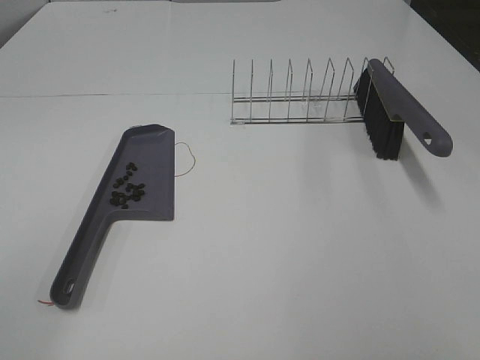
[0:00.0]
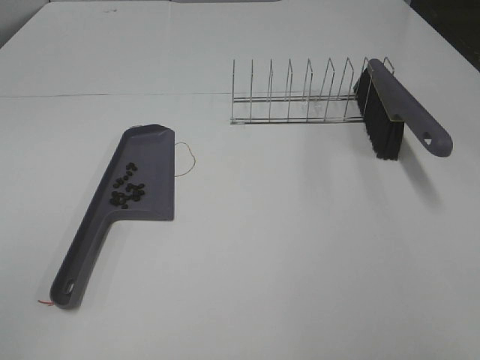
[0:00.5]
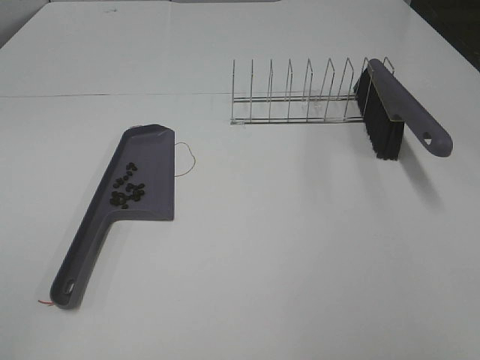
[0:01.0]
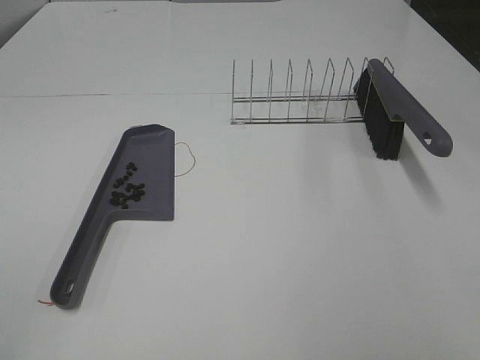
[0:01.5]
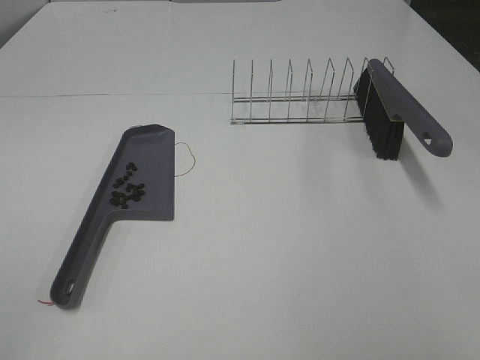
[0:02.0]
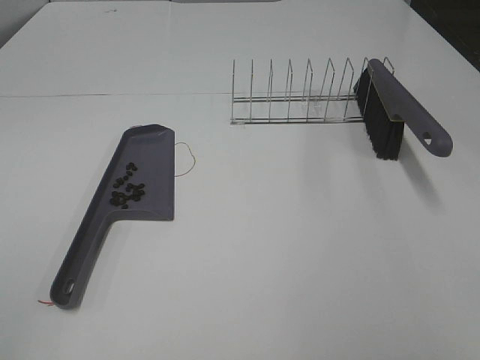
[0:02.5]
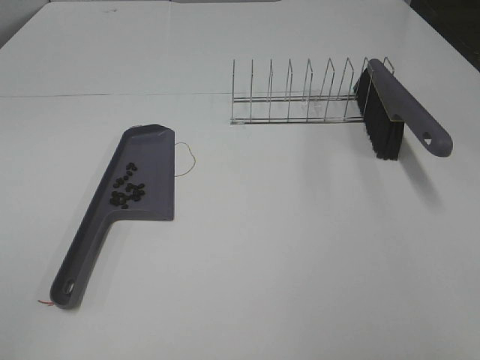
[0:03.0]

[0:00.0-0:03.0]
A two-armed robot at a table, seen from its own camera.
Task of the whole recording: Sweep Coffee Bean.
0:01.5 to 0:03.0: Both grippers stay about where they are.

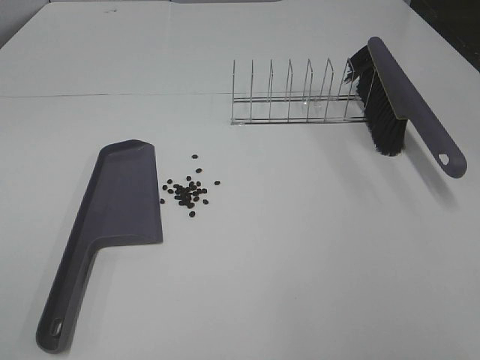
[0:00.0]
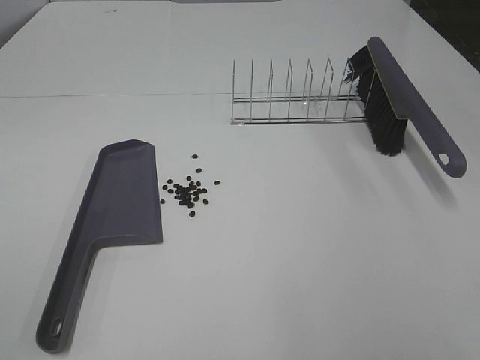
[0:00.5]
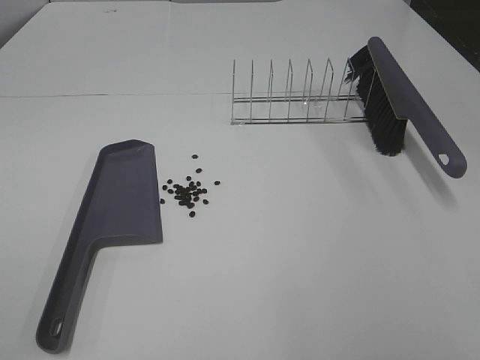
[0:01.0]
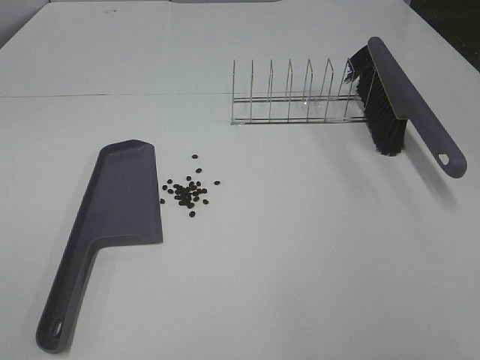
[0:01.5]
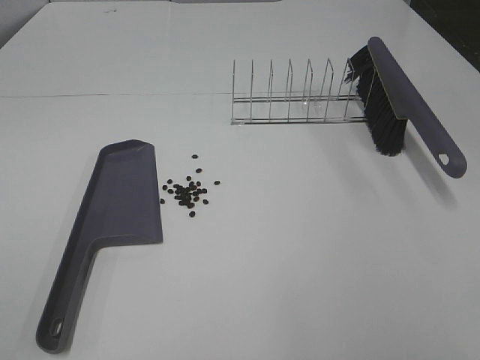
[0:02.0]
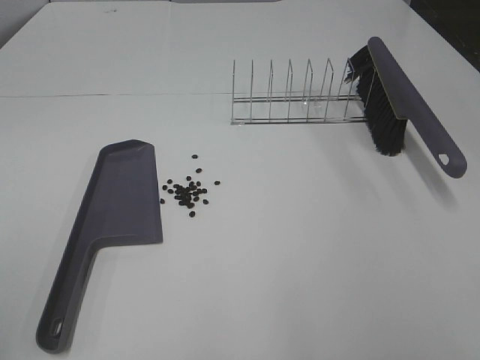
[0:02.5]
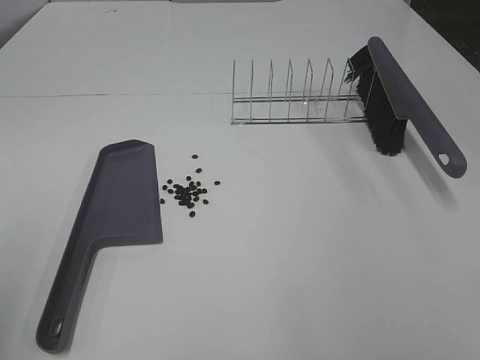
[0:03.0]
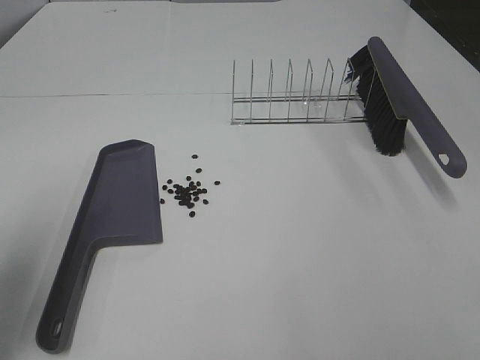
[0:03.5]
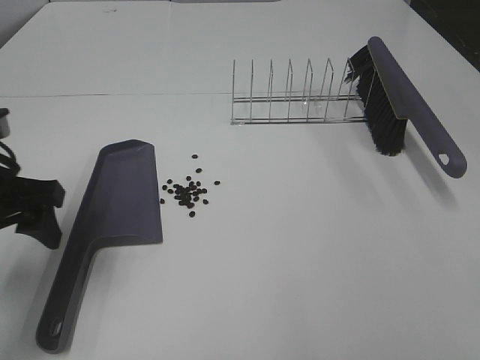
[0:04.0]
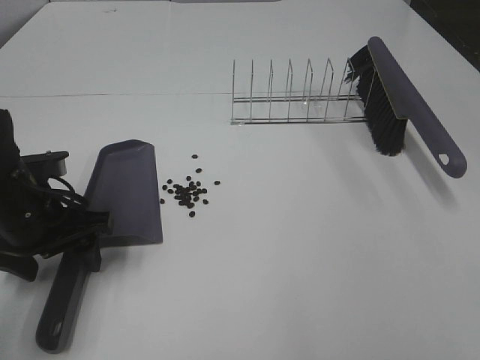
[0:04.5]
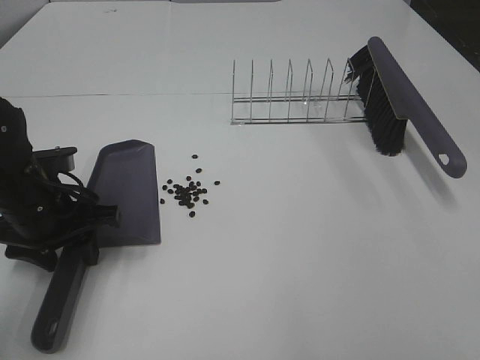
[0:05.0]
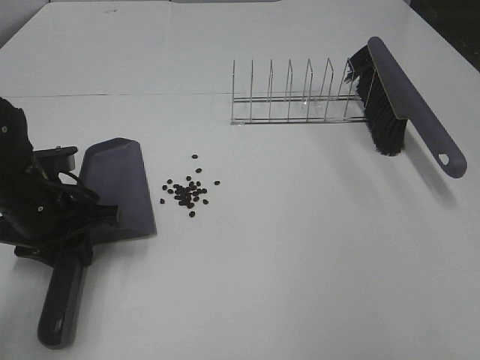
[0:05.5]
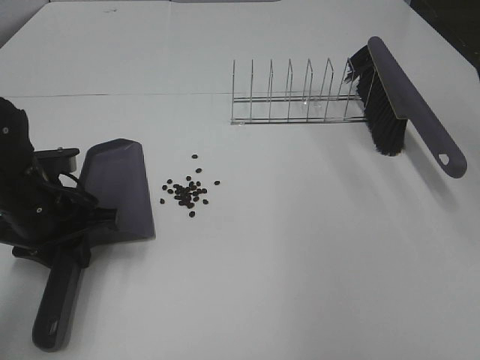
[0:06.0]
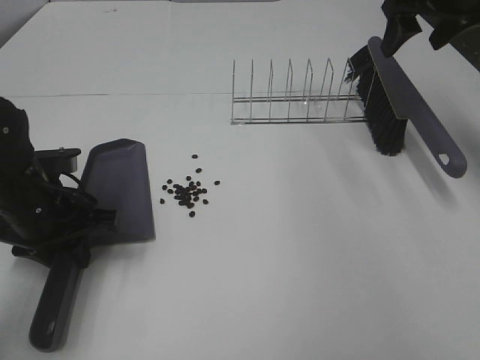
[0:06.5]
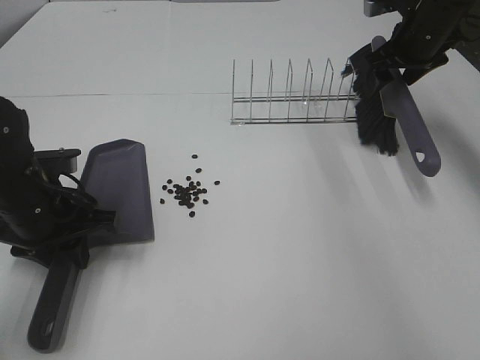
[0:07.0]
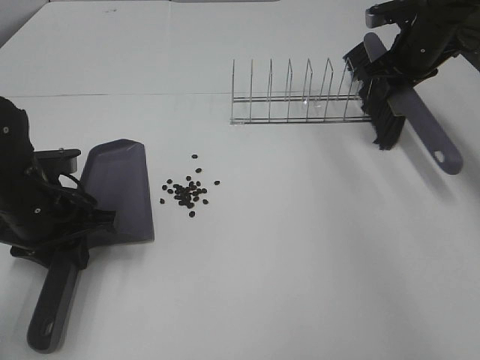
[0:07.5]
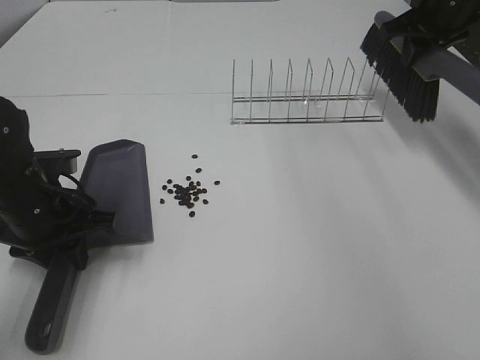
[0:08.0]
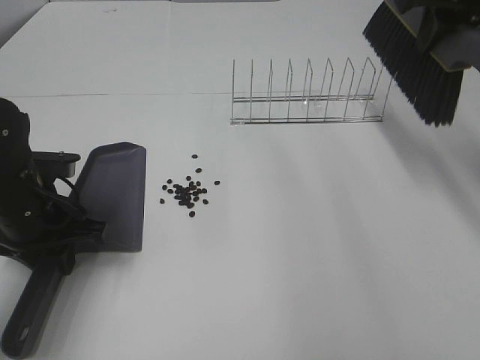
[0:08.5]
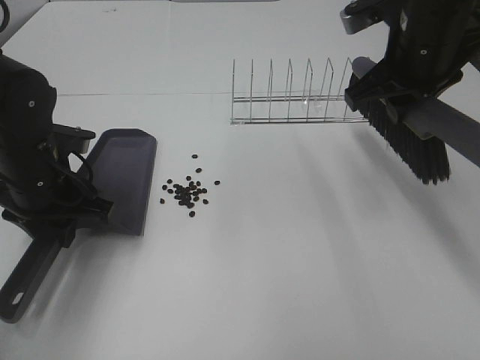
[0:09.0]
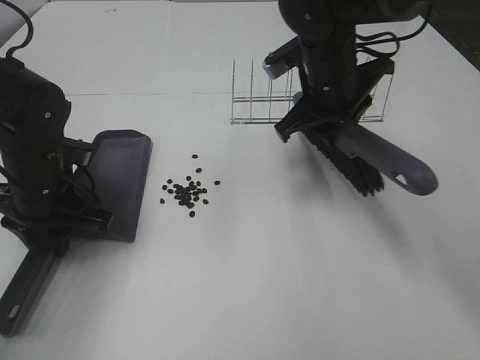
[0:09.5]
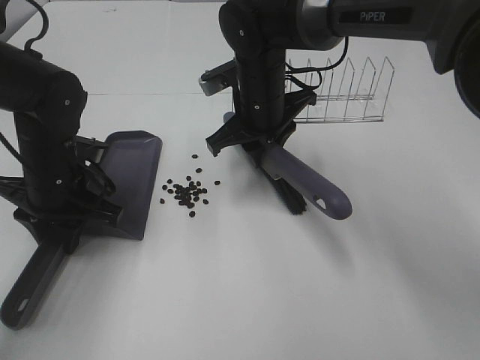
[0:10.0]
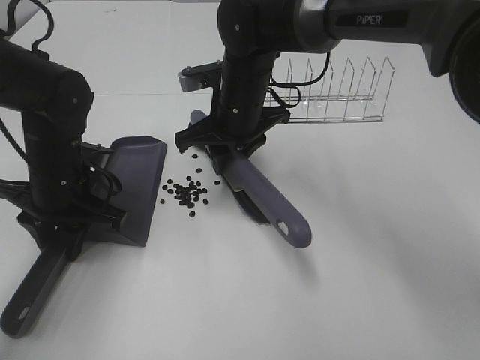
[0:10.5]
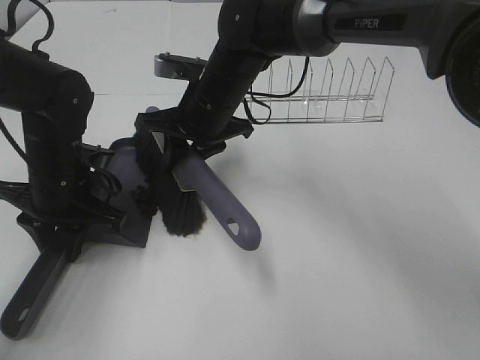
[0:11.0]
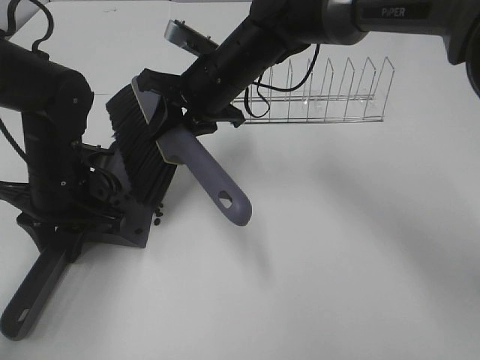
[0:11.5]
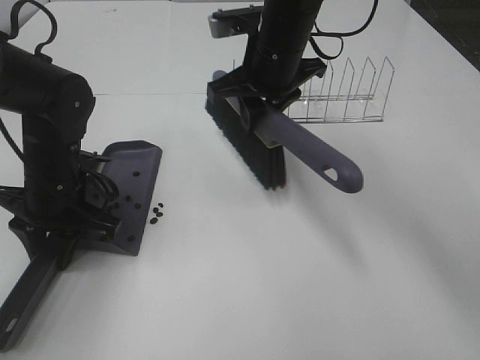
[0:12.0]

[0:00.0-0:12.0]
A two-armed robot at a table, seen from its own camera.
Task of the whole recording: Sweep Coffee Bean.
Step, 0:00.0 to 0:05.0: Left hand: grab the dustpan.
Step, 0:05.5 to 0:07.5: Right hand:grab the broom.
0:00.0 to 0:02.0: Both grippers stay about where they are.
0:02.0 to 0:04.0: The left gripper shifts some 30 cm forward and downward.
0:04.0 to 0:06.0: The left gripper travels downward by some 10 cm, and closes.
0:06.0 to 0:08.0: The right gripper heads forward and downward, covering roughly 20 cm, and closes.
0:08.0 to 0:10.0: The right gripper is displaced to the left and downward by about 25 cm.
0:10.0 to 0:12.0: The right gripper is displaced upward by roughly 5 cm.

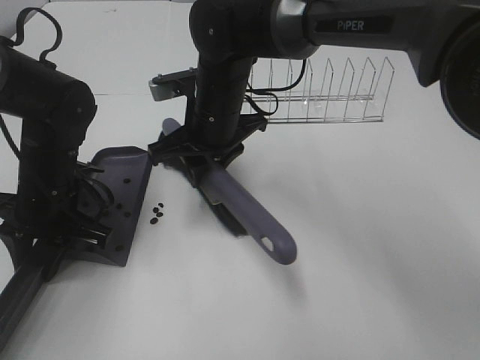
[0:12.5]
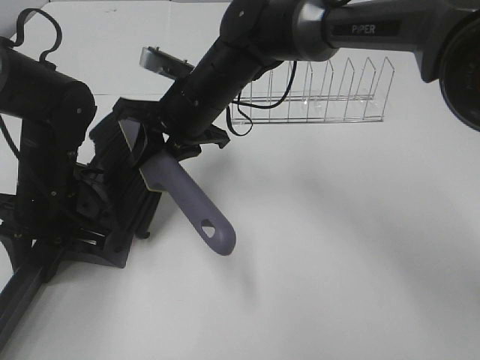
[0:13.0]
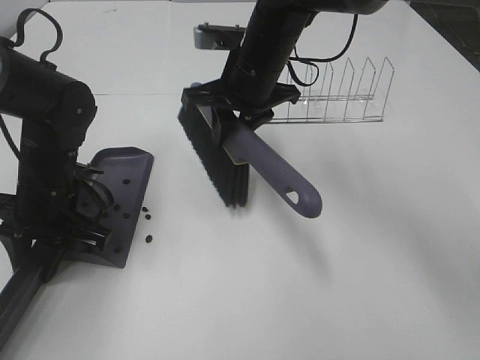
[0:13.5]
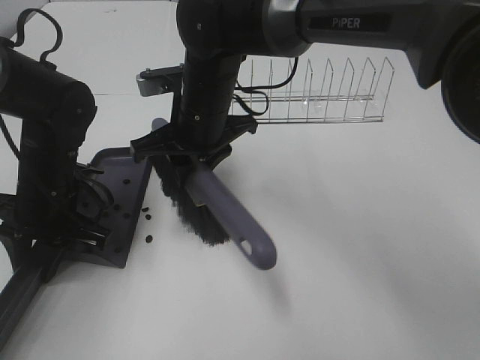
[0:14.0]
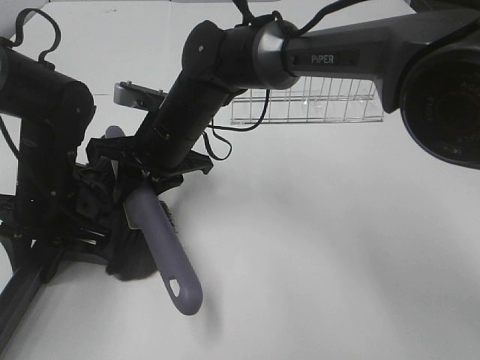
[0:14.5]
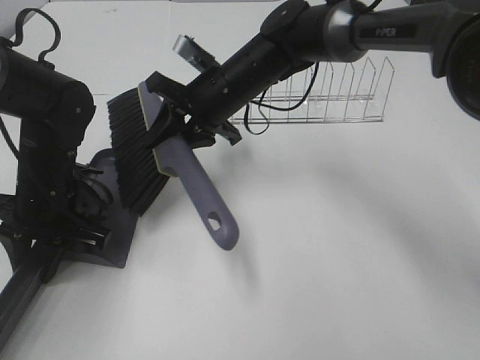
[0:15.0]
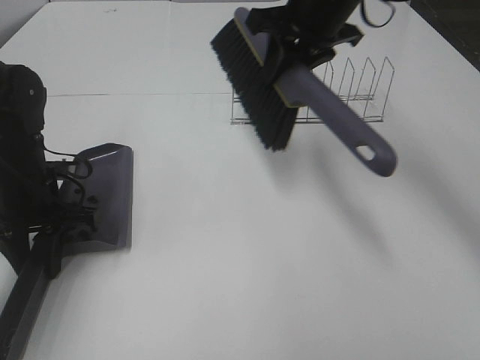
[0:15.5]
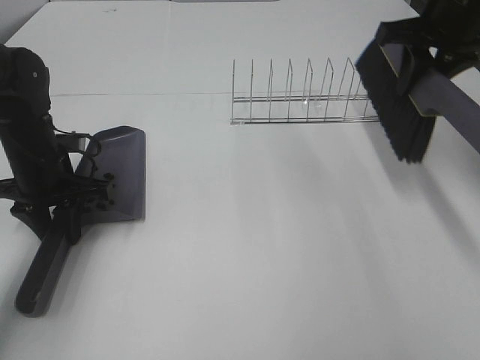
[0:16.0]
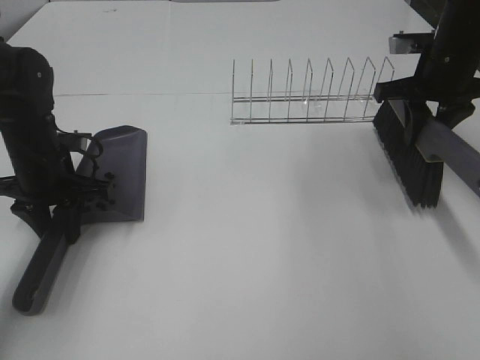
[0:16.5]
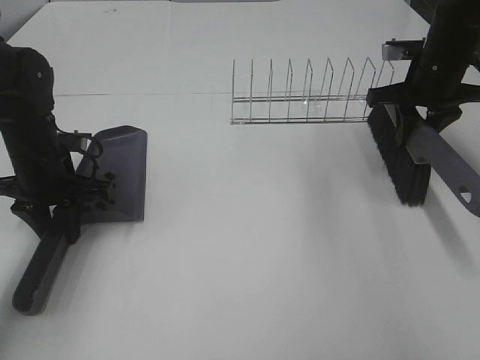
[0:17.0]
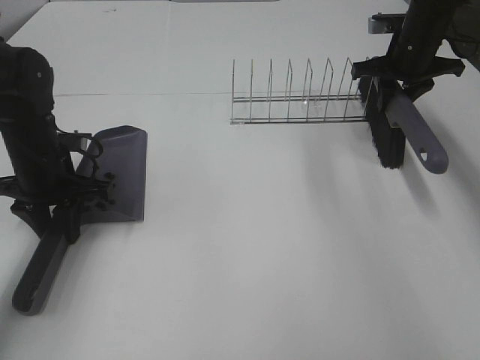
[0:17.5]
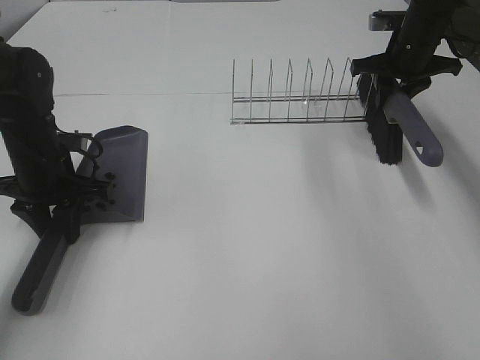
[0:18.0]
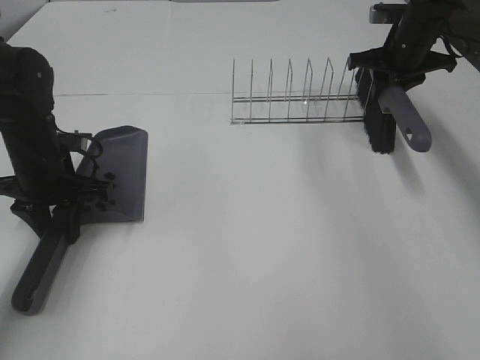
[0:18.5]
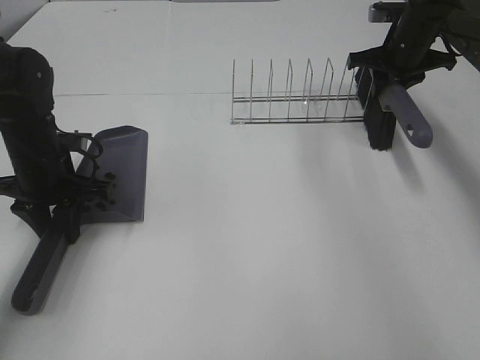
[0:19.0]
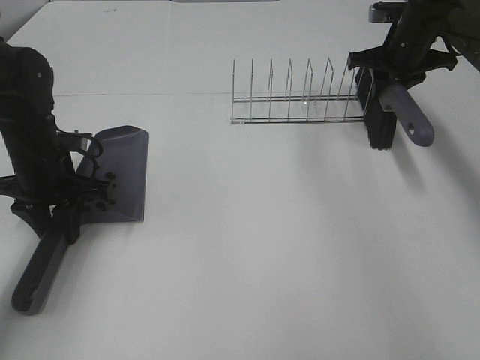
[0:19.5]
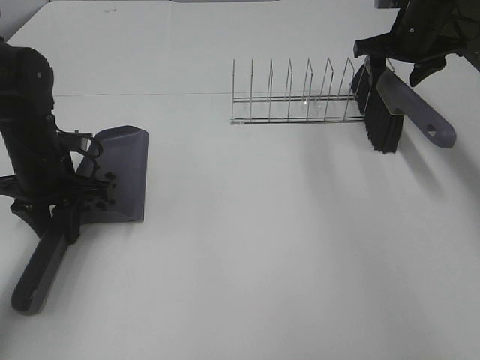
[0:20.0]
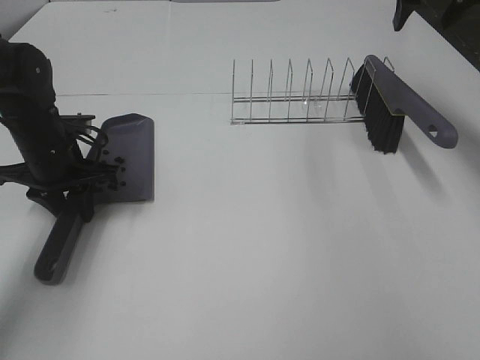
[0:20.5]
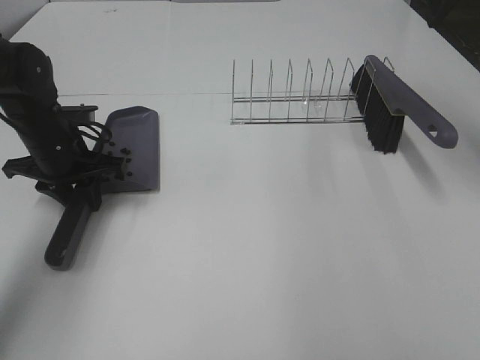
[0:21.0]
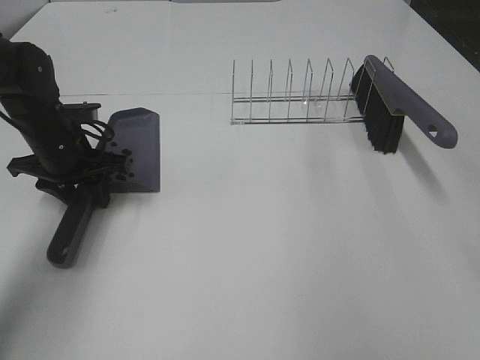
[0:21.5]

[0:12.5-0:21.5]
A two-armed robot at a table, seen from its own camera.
Task of the whole recording: Sweep Coffee Bean.
Step, 0:12.5 to 0:15.0: Right hand:sweep the coffee beans into the dustpan.
Step, 0:15.5 to 0:19.5: Right hand:place the broom on the rack.
0:12.5 to 0:14.5: The right gripper ends up roughly 5 cm from where it was.
0:14.5 to 0:17.0: The right gripper travels to the right by roughly 35 cm; the left gripper changes place by roughly 5 cm.
0:17.0 to 0:19.5: The right gripper shifts approximately 10 cm forward.
0:19.5 to 0:21.5: The right gripper shifts roughly 40 cm backward and upward, and opens.

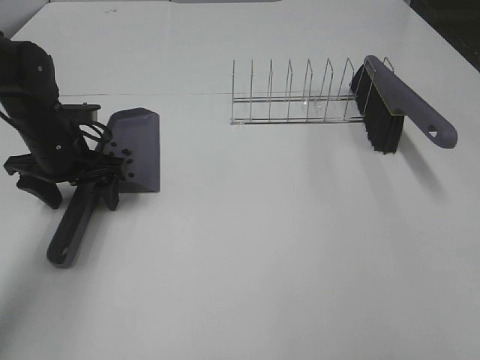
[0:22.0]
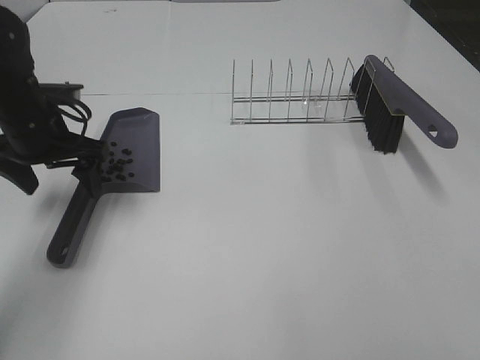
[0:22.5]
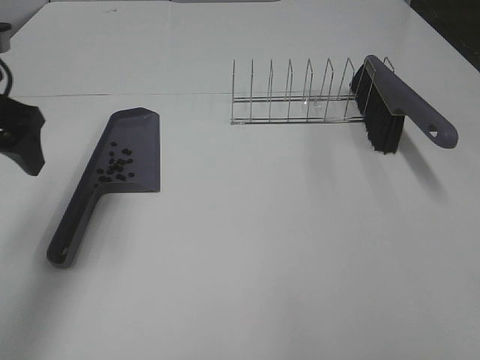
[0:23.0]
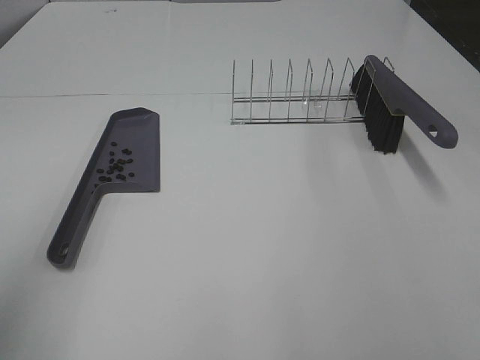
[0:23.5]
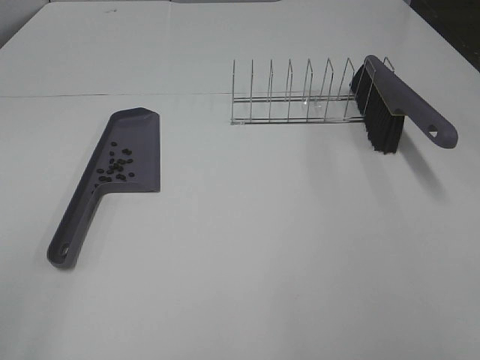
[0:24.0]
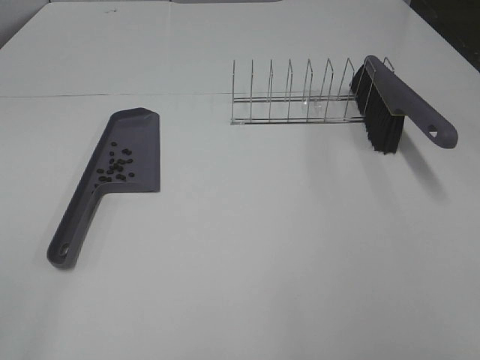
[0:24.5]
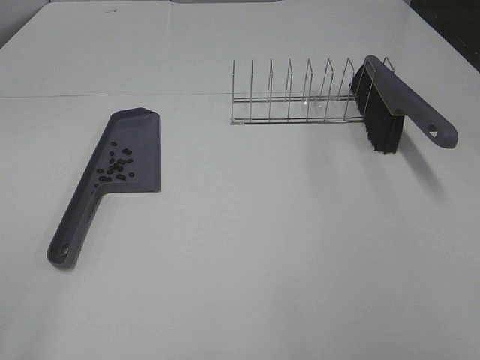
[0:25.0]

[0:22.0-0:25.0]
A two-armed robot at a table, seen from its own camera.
Task of the whole recording: Sweep Coffee Bean.
0:22.0 to 0:23.5: The left gripper is displaced backward and upward by approximately 35 cm.
0:23.5 to 0:25.0: The left gripper goes roughly 10 cm backward.
